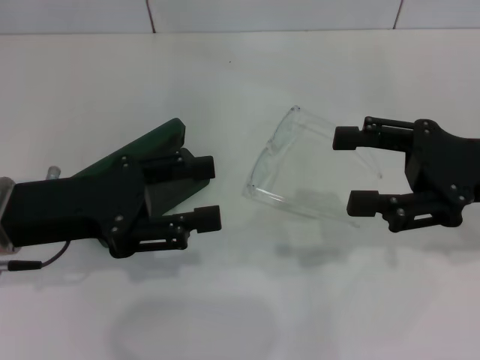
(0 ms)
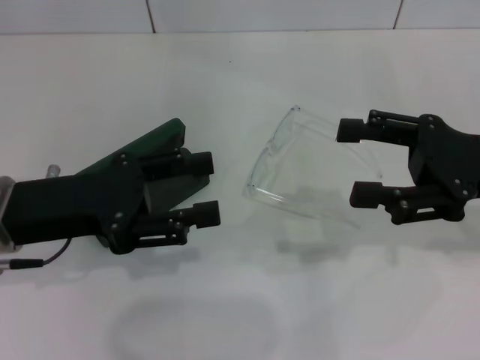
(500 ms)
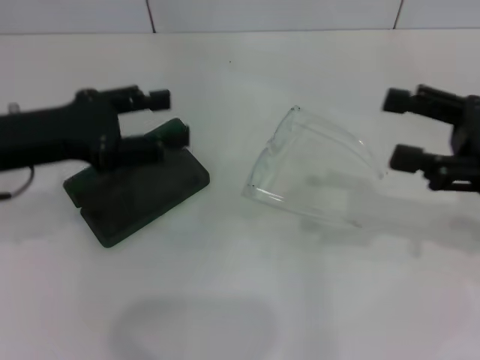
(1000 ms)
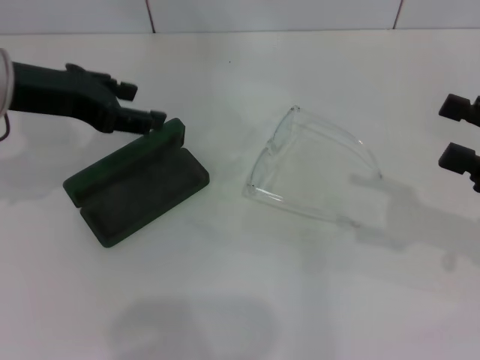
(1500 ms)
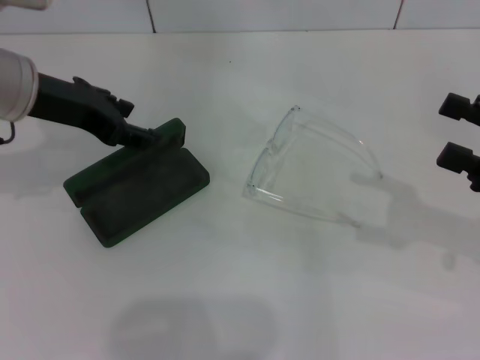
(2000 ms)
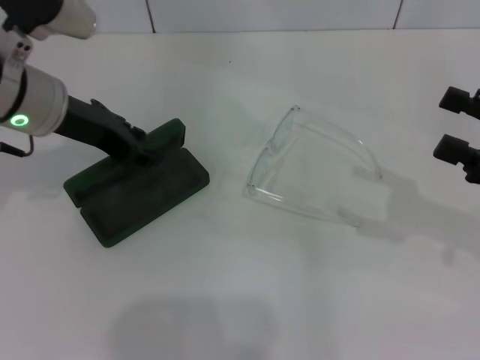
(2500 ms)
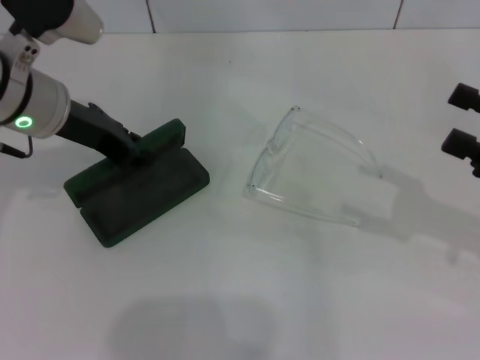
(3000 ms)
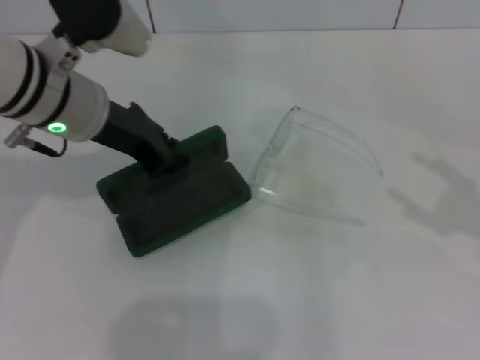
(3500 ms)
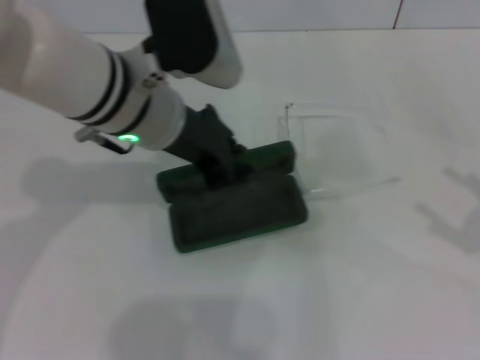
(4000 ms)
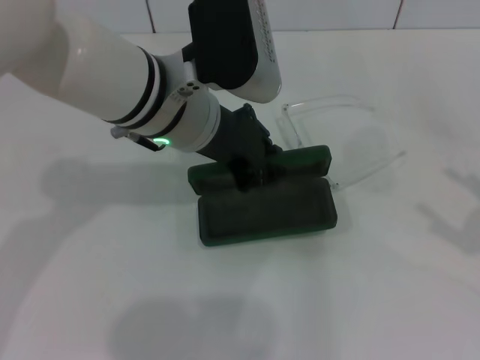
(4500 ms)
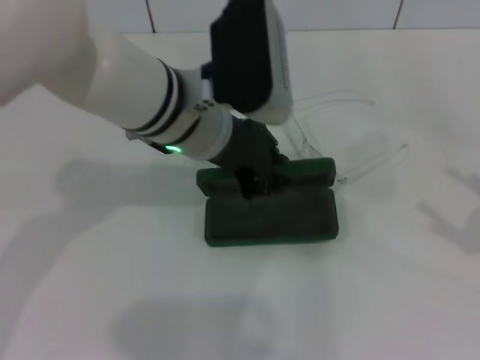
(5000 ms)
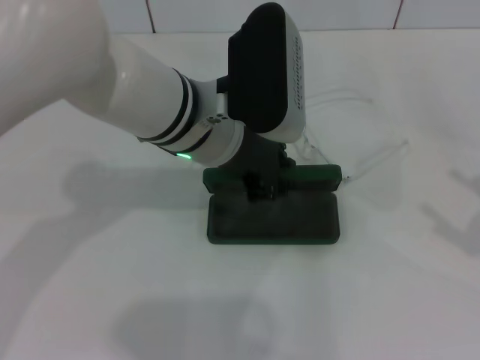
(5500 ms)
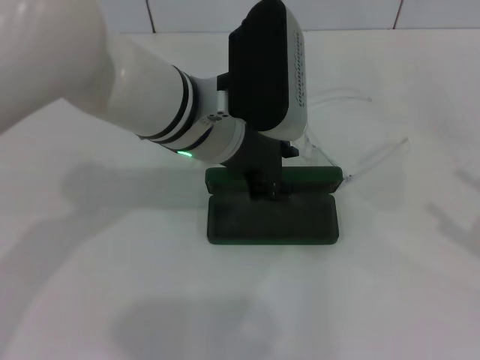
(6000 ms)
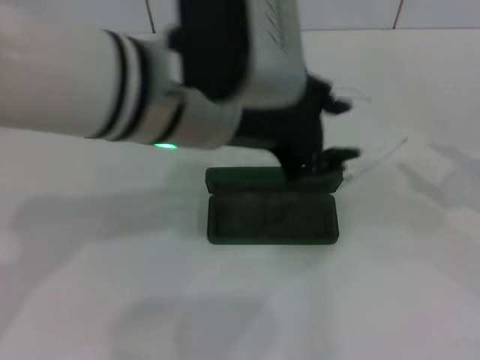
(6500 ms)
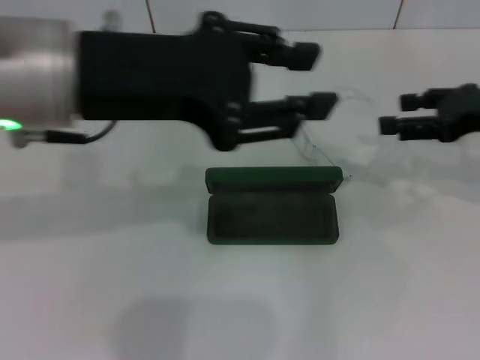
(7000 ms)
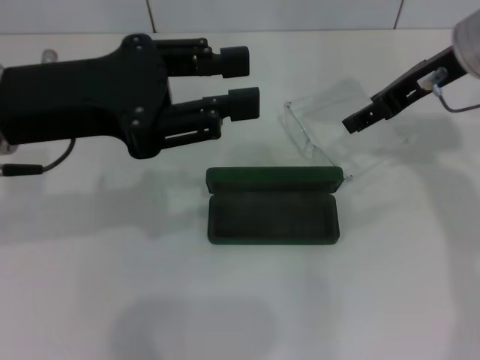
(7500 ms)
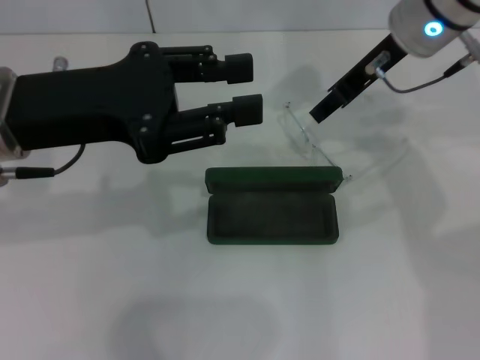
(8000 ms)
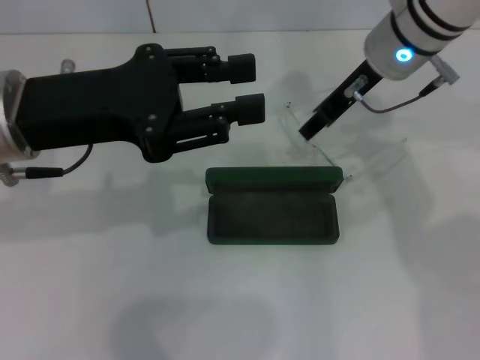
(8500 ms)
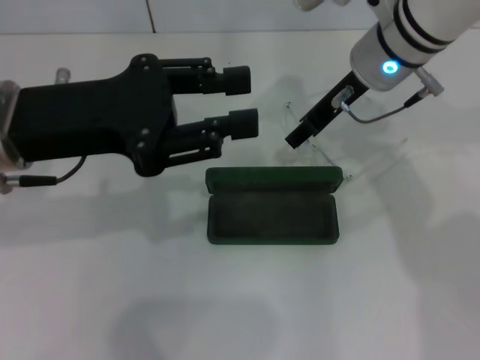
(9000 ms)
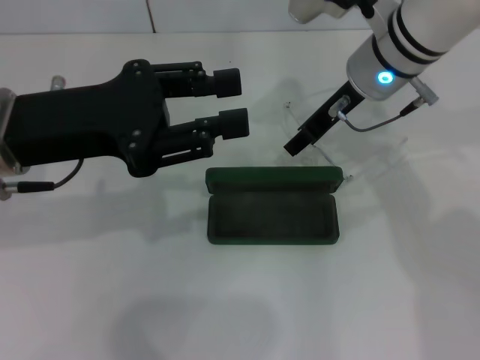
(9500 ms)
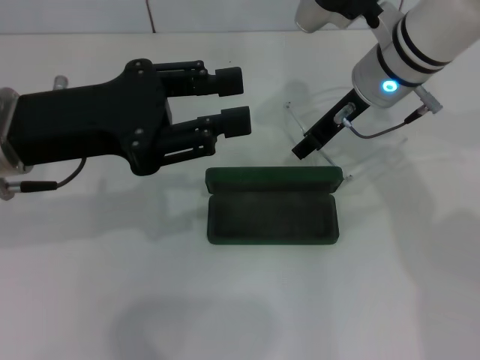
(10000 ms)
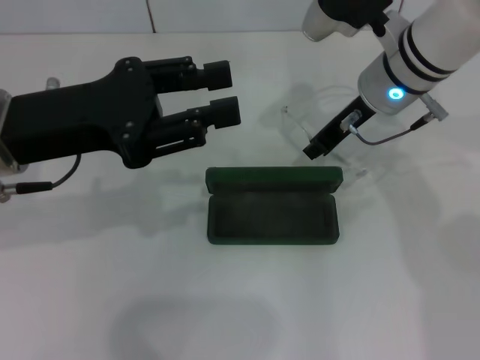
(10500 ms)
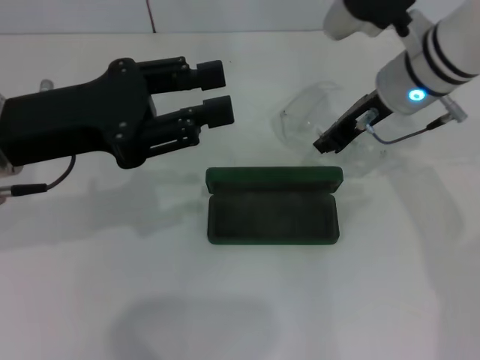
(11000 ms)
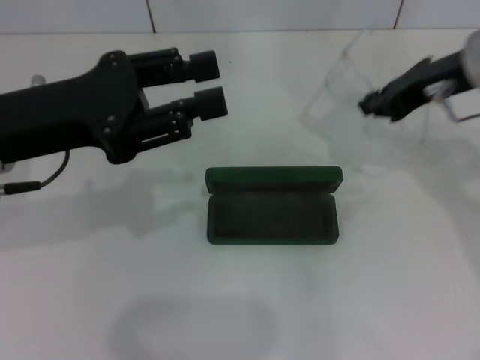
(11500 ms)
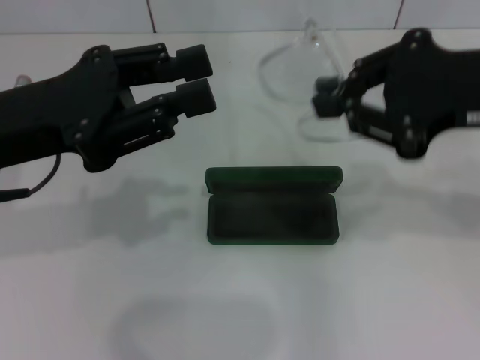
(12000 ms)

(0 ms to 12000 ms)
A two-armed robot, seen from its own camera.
Step, 0 ms - 2500 ms: Grab the glasses case with your left hand.
Step, 3000 ms - 5000 ms: Place the glasses case in the center of the table with your left hand.
Step, 6000 ms - 10500 ms: Grab the eyeglass frame with your right hand.
0 ms - 2000 ms: The right gripper heads to the right, covering roughly 5 cm; the left gripper moves forward and upward, about 10 cm.
2000 ms - 4000 ms: The right gripper travels backward and to the right by approximately 10 cm. The left gripper shifts approximately 10 cm to the right, and closes its fingers.
4000 ms - 6000 ms: The left gripper shifts by some 5 cm, and opens its fingers.
6000 ms - 8000 ms: The left gripper moves to the left, about 15 cm, while the right gripper heads to the left, forward and upward, covering some 35 cm.
8000 ms - 10000 ms: The right gripper travels downward by some 5 cm.
10000 ms - 12000 ms: The right gripper travels backward, to the right and upward by roughly 20 cm, and closes up.

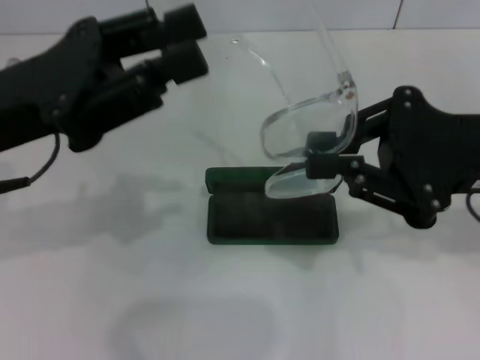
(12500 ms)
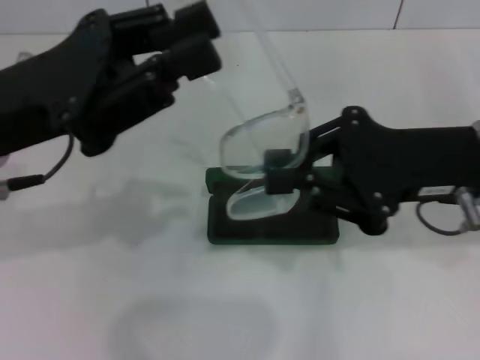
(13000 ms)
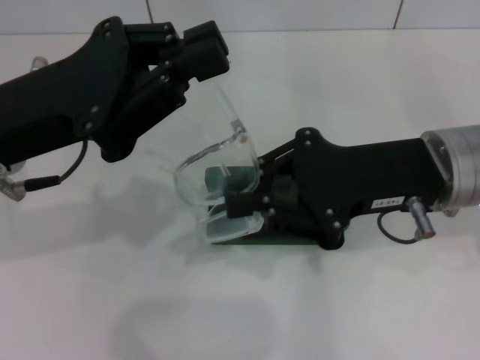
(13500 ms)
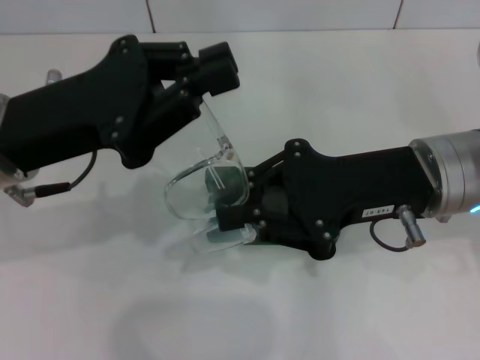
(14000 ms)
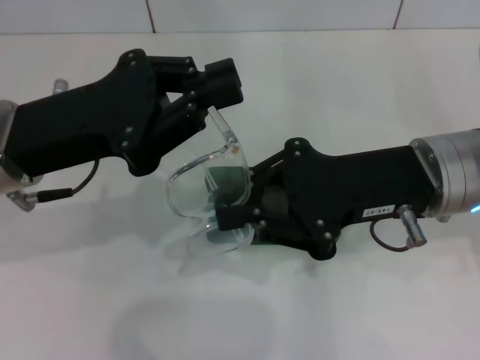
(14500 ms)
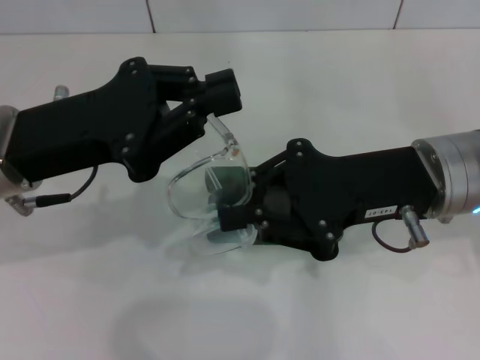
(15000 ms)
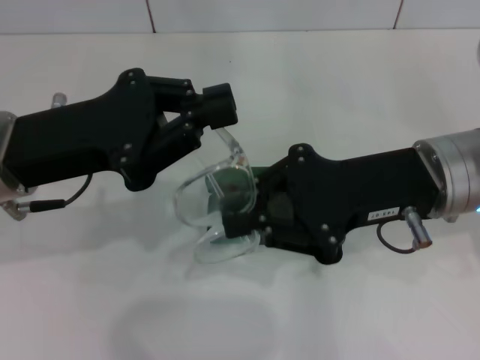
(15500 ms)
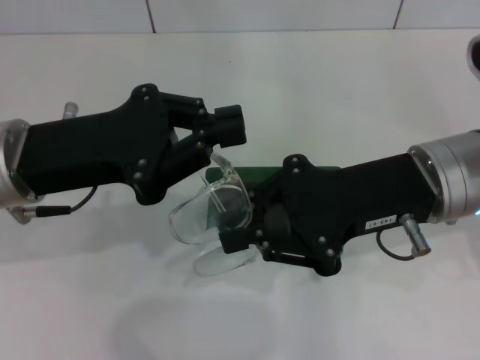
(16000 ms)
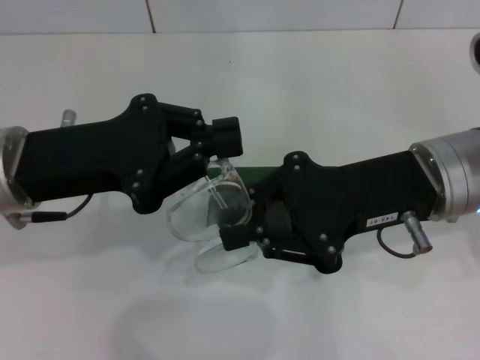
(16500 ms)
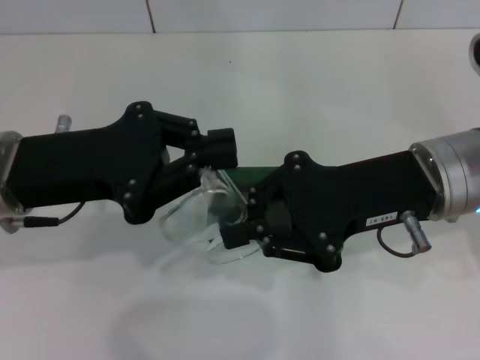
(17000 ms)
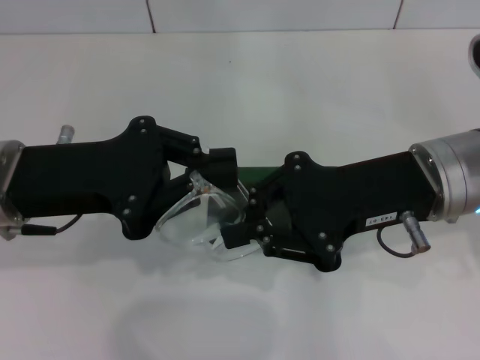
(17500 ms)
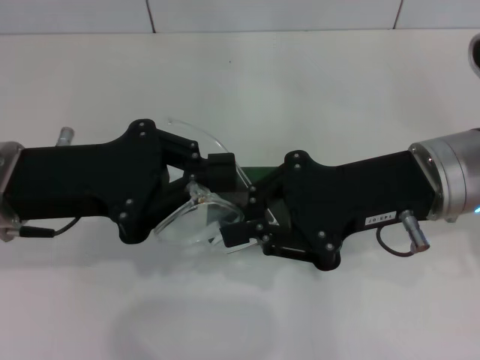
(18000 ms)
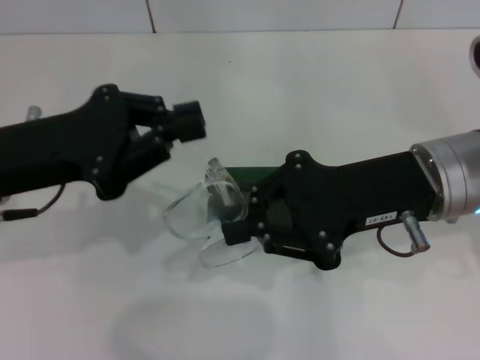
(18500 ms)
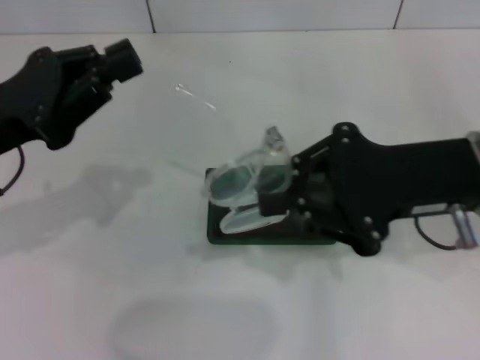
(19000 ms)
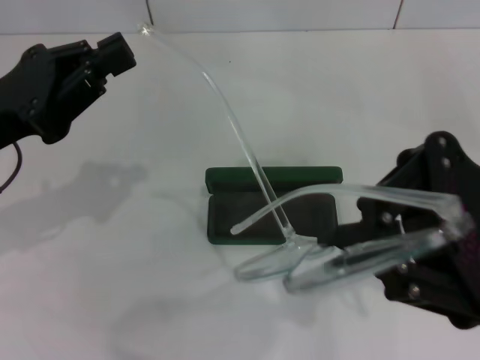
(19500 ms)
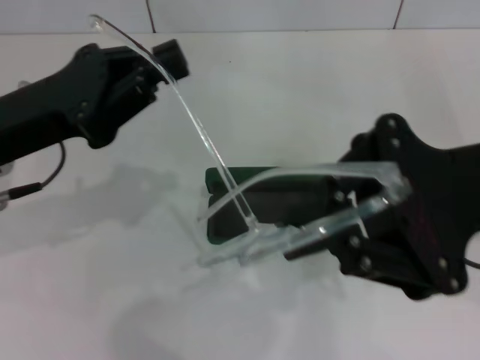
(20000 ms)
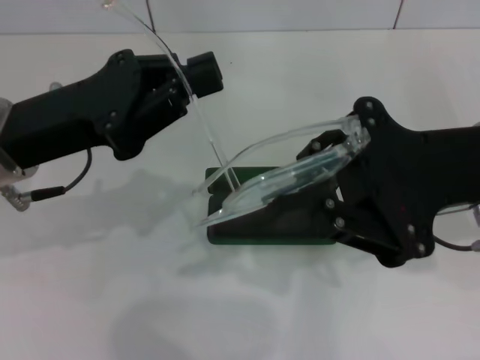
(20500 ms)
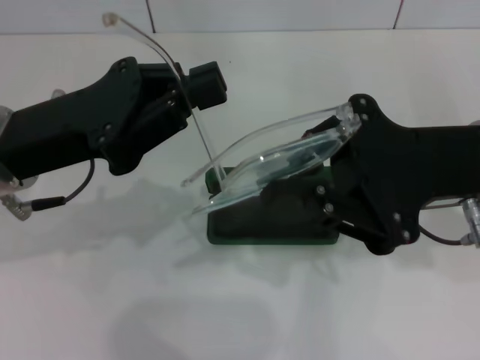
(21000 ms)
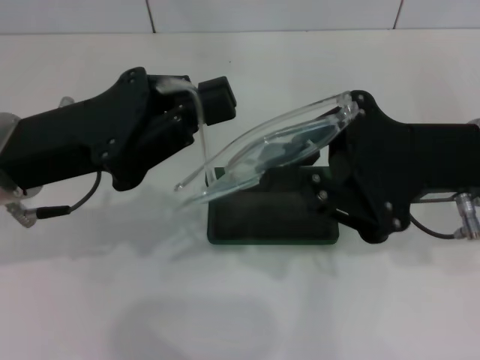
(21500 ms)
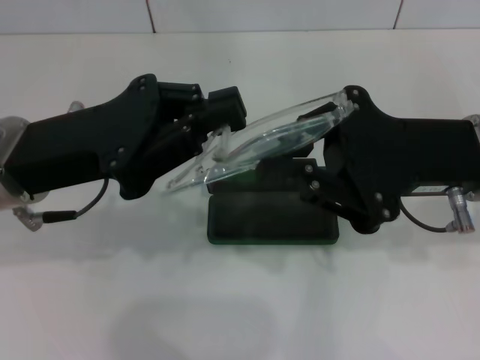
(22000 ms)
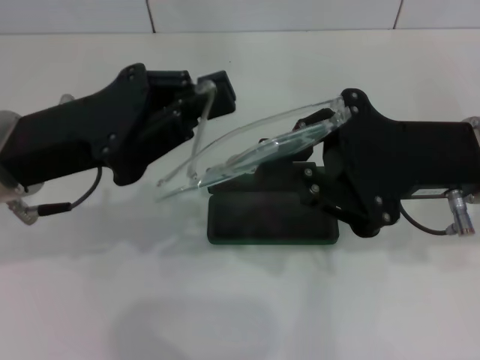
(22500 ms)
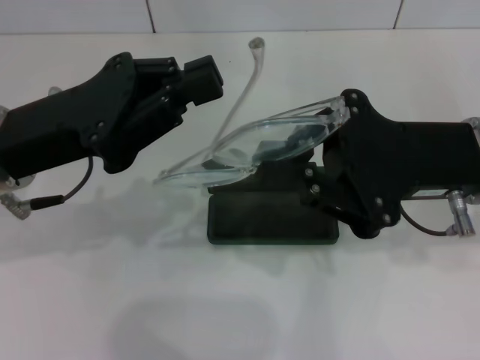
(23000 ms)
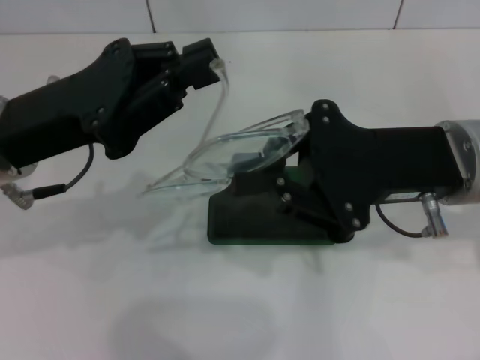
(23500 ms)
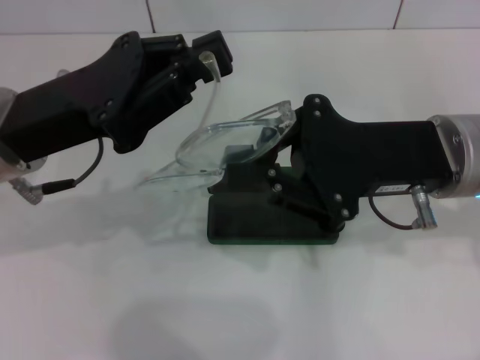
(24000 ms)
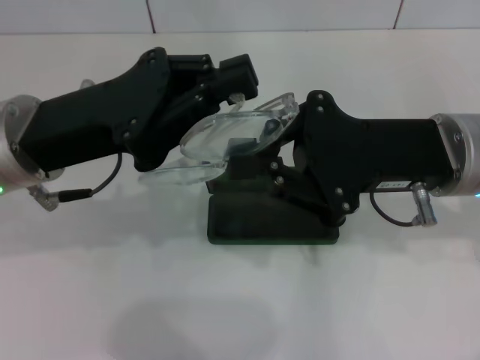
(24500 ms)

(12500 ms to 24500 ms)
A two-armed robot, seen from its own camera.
Step, 12500 ms - 22000 ms: Fold the frame with your left hand.
12500 ms - 14500 ms: The left gripper closes up. The right gripper shifts approximately 5 cm to the left.
14500 ms - 18500 ms: The grippers stay close to where they were, moving slightly.
20500 ms - 24500 ms: The grippers make only small movements.

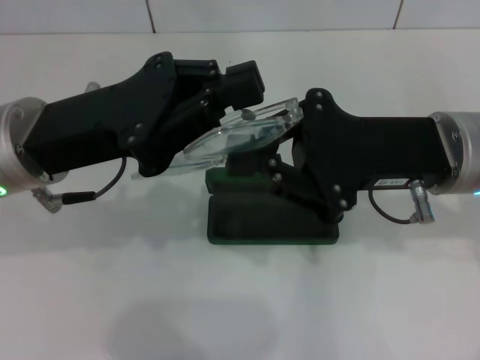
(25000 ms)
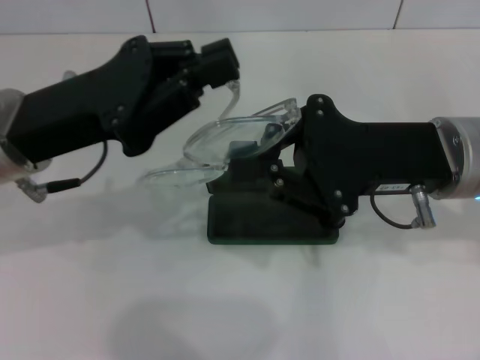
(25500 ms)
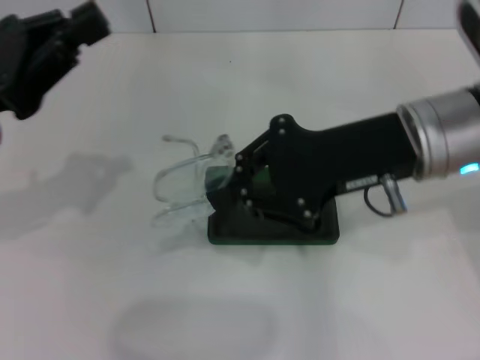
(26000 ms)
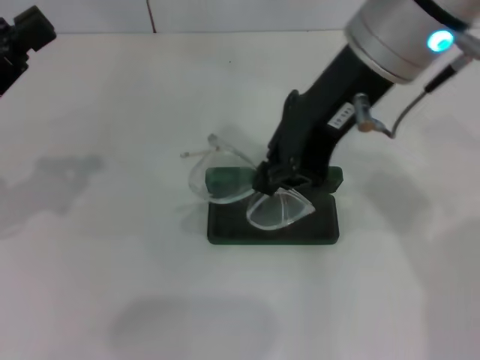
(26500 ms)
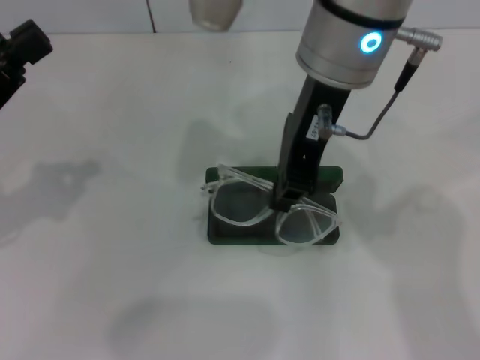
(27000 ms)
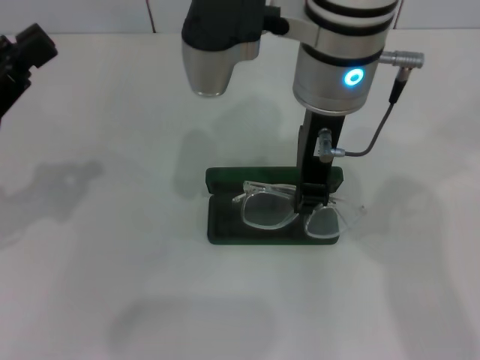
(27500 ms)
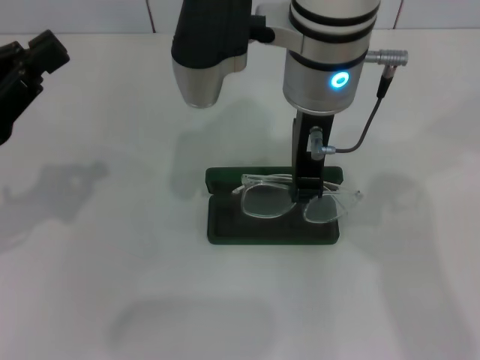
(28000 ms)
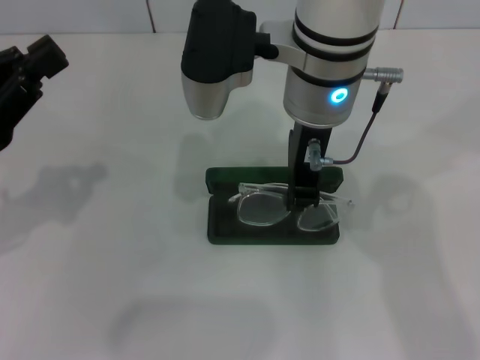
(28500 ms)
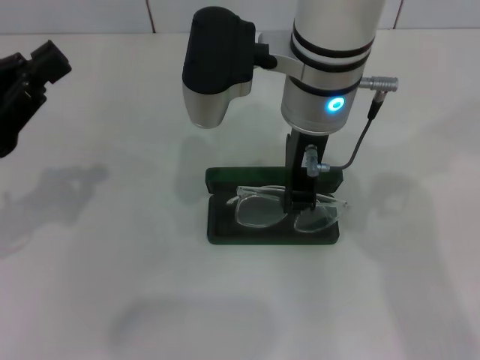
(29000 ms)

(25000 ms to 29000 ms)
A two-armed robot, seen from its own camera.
25000 ms - 27000 ms: The right gripper travels to the left and upward by about 15 cm. Meanwhile the left gripper is displaced to the left by approximately 10 cm.
27000 ms - 29000 ms: The right gripper travels downward by about 5 cm.
